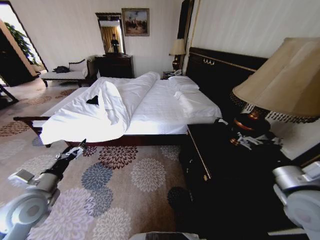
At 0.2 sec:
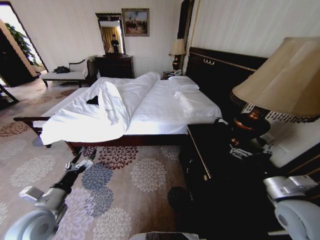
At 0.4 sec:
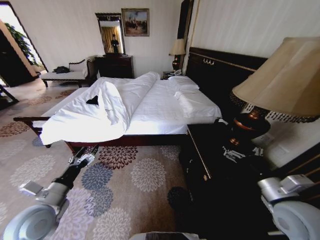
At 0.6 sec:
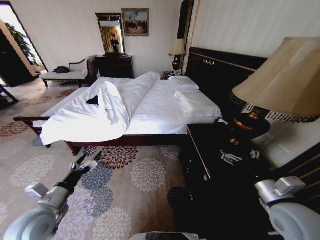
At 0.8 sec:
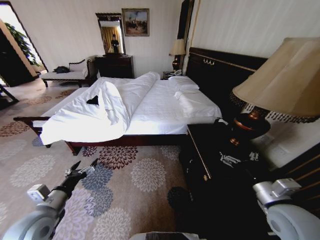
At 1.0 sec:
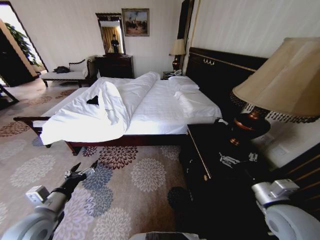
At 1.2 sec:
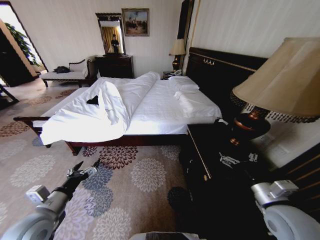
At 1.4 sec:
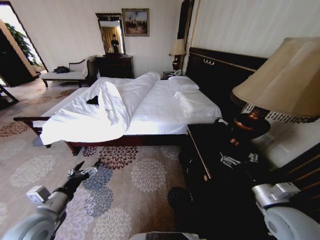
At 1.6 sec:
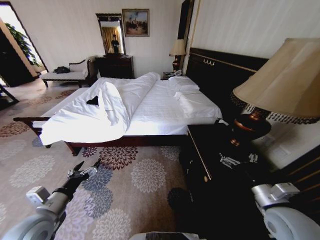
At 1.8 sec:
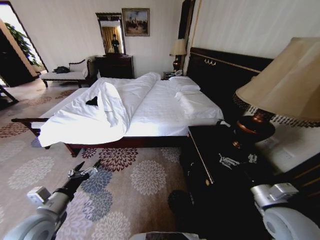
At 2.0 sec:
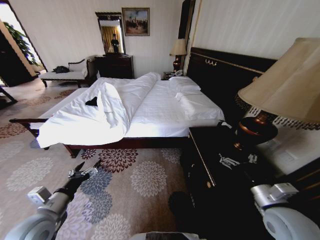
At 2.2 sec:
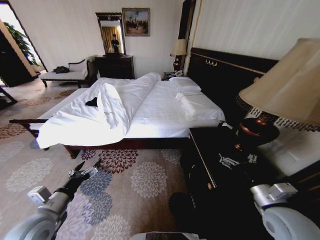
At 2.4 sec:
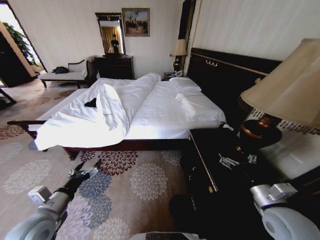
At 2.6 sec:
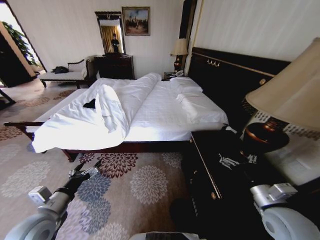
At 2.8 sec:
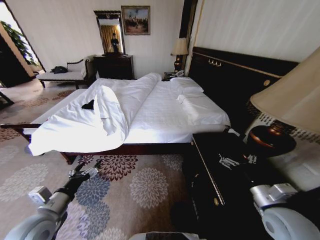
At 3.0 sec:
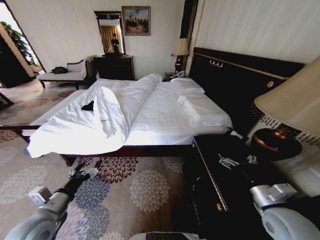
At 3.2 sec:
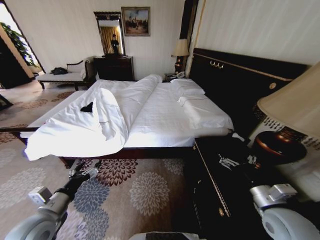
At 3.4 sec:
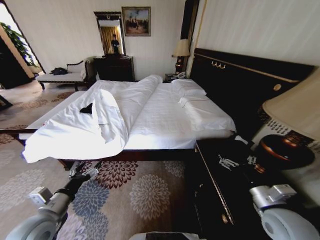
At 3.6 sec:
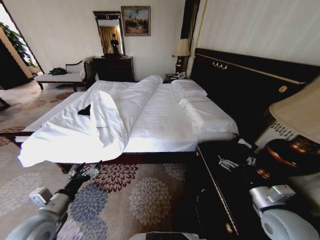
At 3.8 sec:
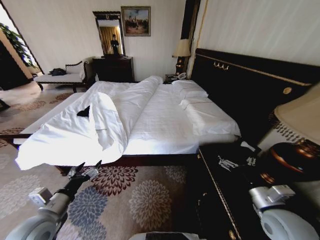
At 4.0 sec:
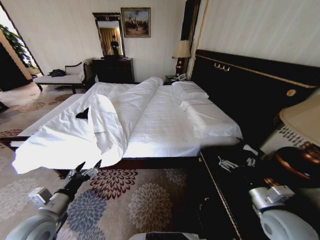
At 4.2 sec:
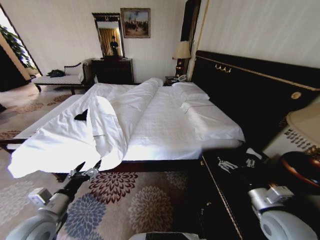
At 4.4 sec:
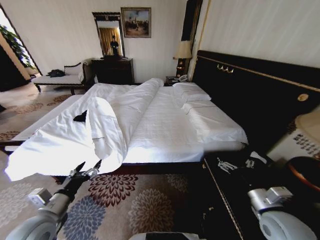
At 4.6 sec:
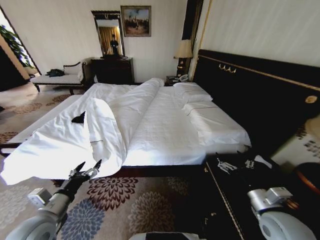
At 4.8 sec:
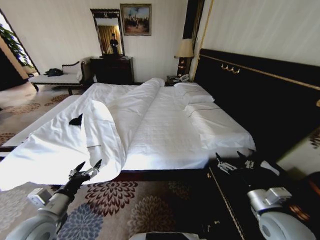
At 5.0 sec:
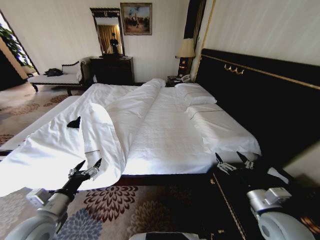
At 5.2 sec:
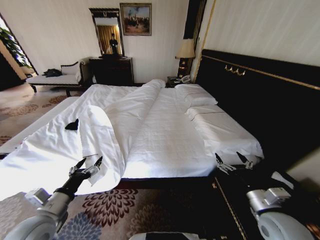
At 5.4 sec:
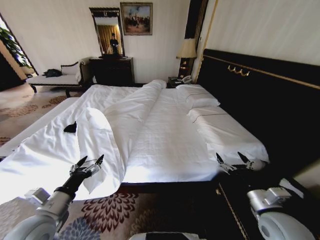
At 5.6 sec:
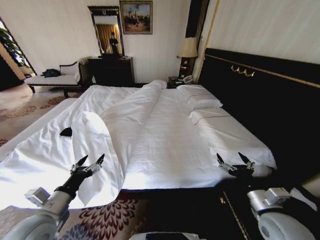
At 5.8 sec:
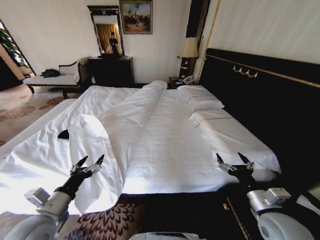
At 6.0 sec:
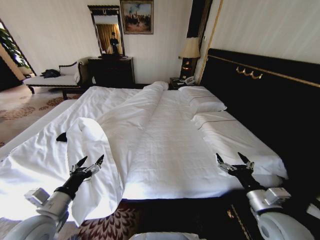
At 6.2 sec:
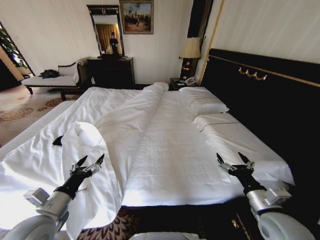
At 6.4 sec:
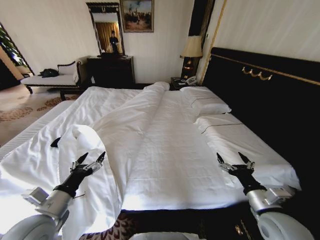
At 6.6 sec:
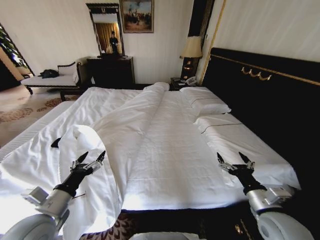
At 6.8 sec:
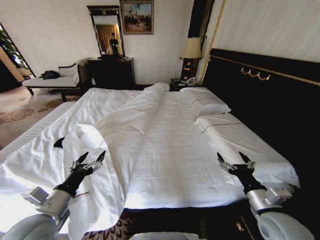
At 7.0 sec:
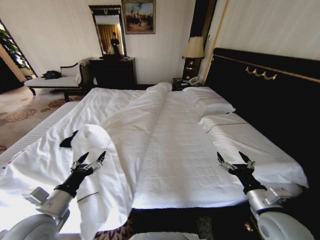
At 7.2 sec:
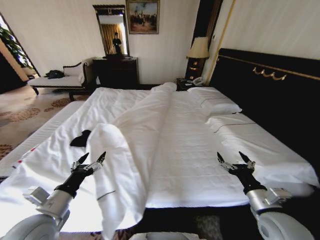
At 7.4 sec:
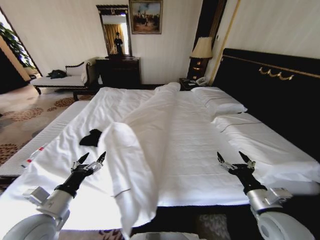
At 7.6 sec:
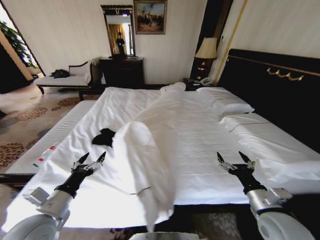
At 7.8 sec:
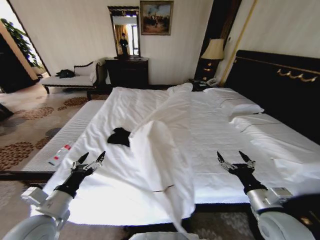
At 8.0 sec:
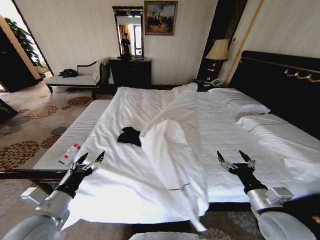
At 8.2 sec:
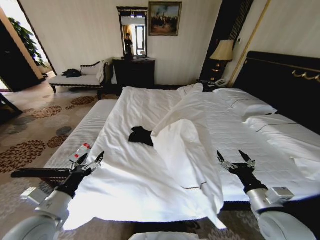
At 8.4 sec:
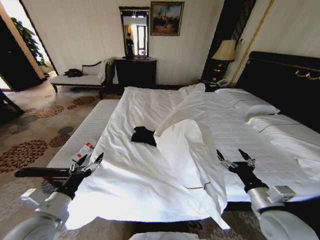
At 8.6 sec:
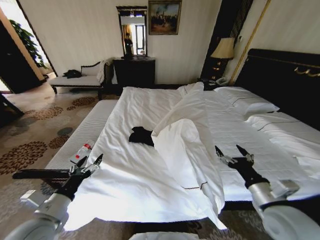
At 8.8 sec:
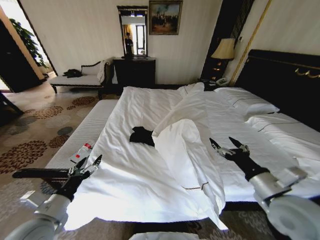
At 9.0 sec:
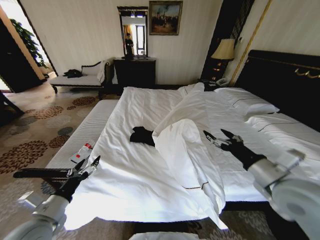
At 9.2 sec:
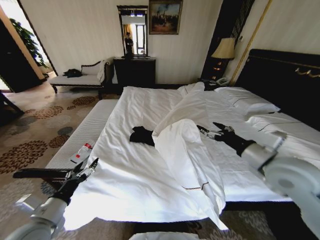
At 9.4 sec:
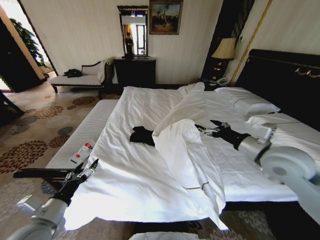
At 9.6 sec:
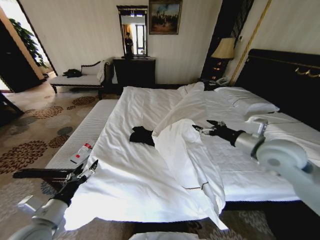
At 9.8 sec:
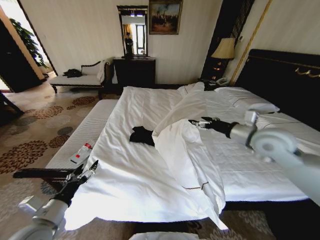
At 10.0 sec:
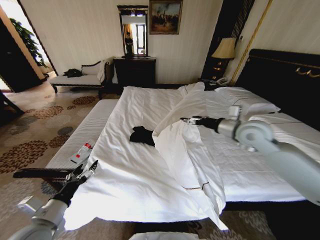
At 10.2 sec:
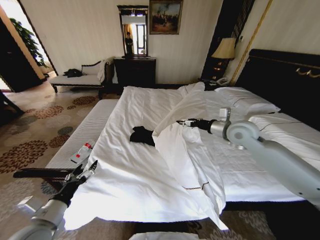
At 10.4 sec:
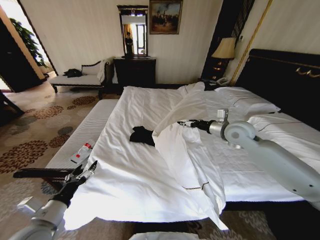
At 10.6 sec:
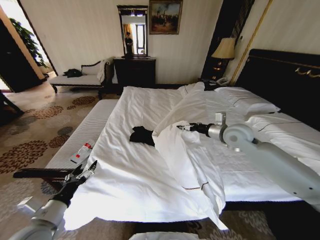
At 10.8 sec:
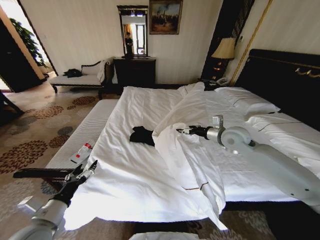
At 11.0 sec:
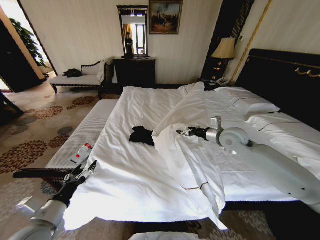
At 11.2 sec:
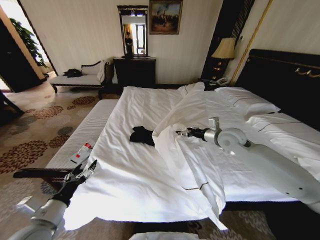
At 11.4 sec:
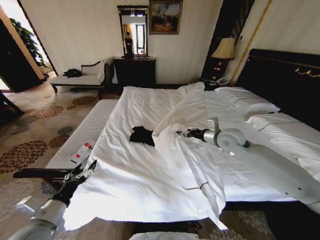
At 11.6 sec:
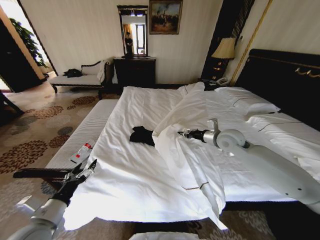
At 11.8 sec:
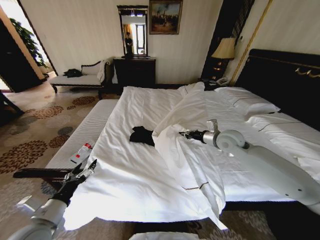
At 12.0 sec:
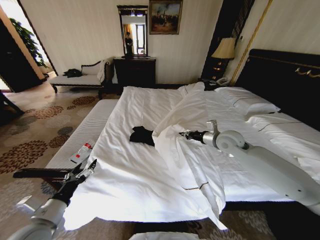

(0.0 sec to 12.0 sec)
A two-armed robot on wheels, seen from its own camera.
Task of the whole recording: Fold the clothes on the bed.
7.6 sec - 9.0 sec: The right gripper heads upward, covering some 10 cm.
9.0 sec - 10.4 sec: The right gripper moves forward, some 25 cm.
10.4 sec - 12.0 sec: The right gripper closes up.

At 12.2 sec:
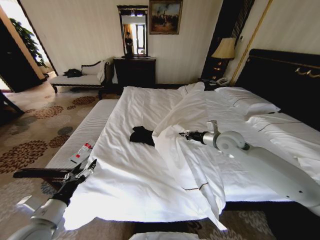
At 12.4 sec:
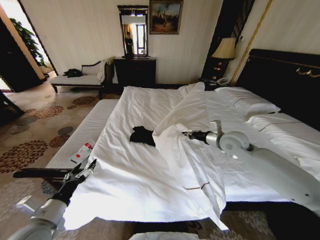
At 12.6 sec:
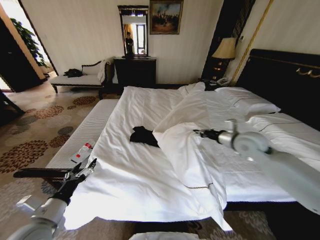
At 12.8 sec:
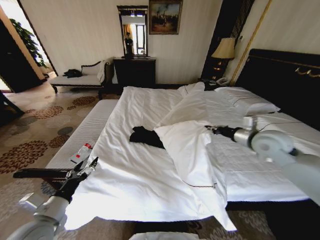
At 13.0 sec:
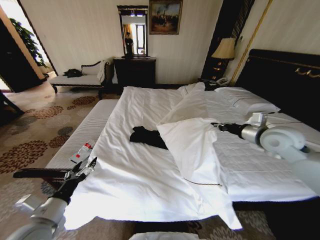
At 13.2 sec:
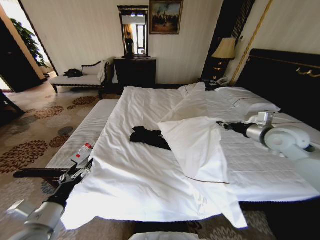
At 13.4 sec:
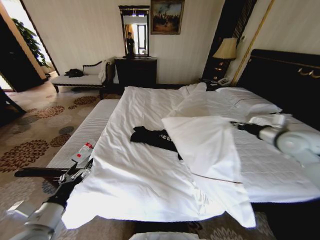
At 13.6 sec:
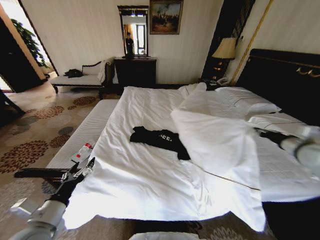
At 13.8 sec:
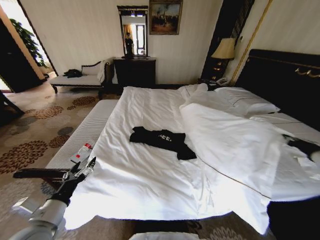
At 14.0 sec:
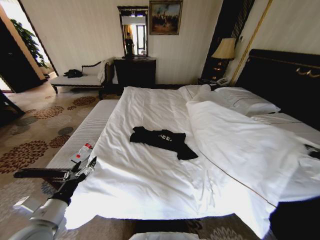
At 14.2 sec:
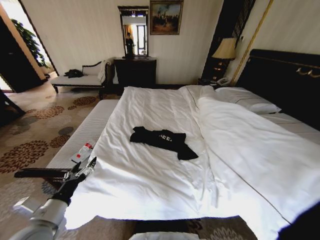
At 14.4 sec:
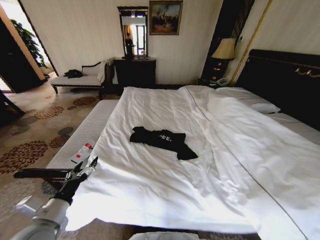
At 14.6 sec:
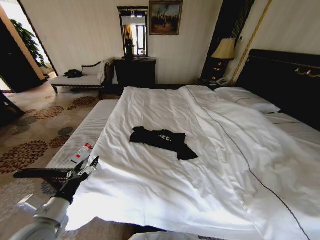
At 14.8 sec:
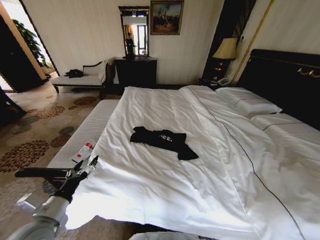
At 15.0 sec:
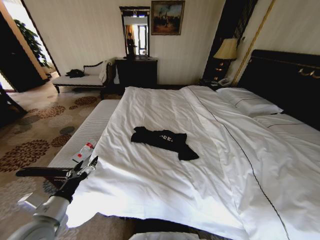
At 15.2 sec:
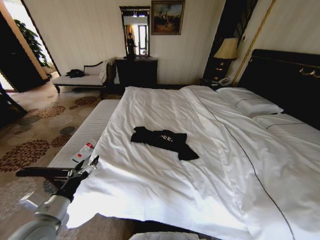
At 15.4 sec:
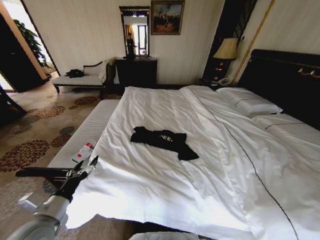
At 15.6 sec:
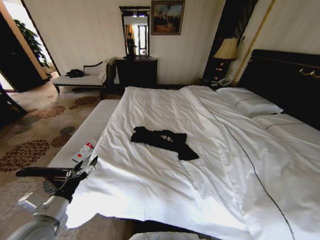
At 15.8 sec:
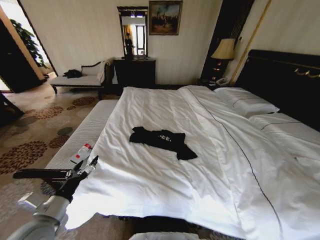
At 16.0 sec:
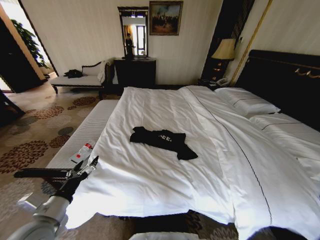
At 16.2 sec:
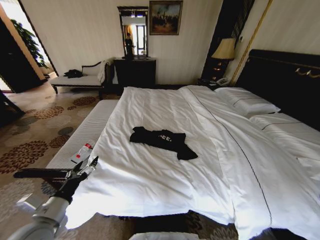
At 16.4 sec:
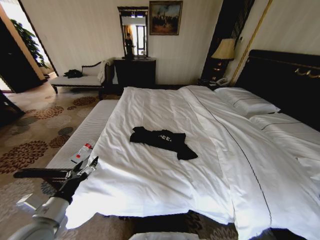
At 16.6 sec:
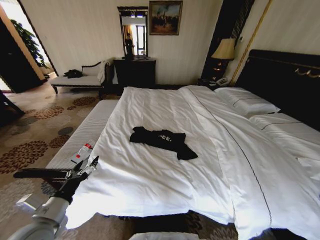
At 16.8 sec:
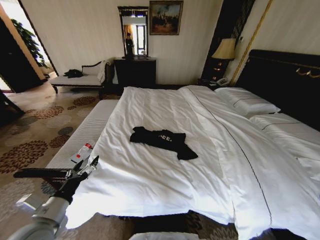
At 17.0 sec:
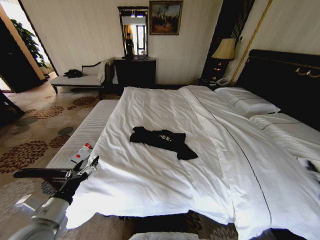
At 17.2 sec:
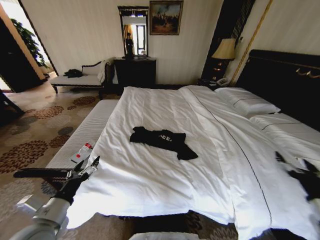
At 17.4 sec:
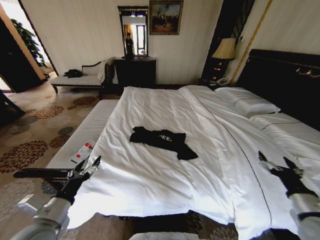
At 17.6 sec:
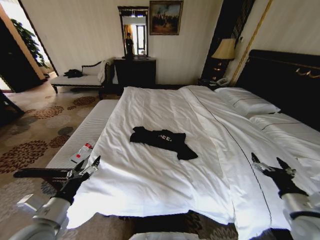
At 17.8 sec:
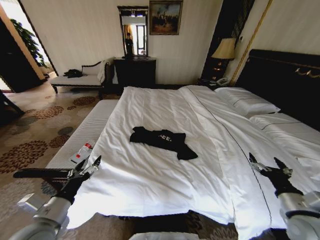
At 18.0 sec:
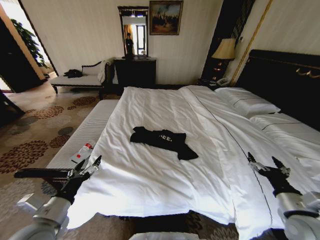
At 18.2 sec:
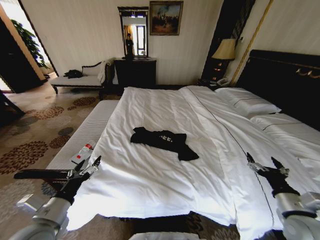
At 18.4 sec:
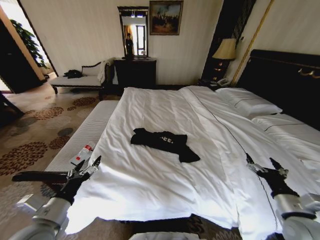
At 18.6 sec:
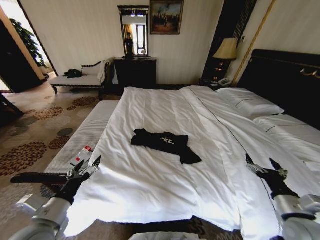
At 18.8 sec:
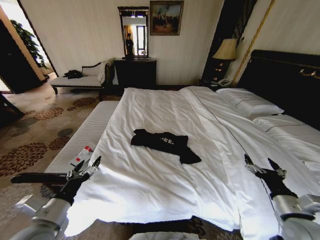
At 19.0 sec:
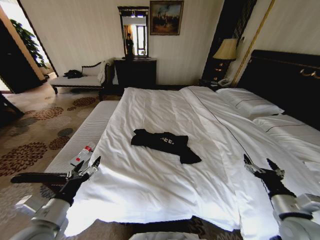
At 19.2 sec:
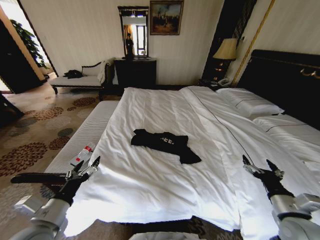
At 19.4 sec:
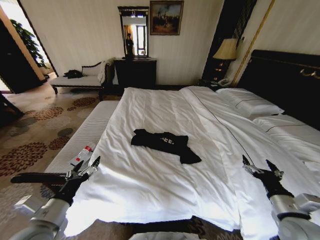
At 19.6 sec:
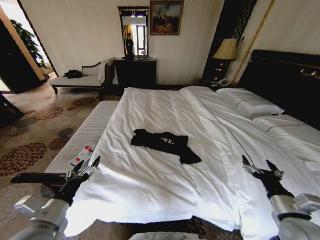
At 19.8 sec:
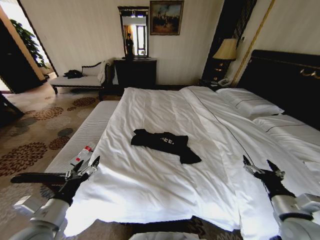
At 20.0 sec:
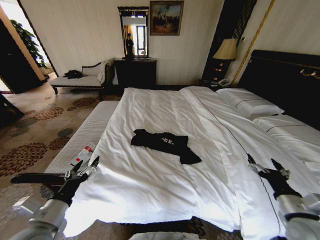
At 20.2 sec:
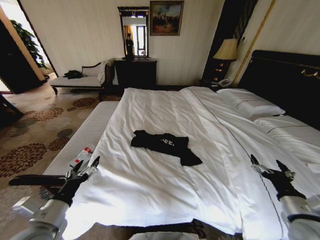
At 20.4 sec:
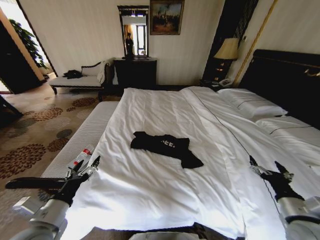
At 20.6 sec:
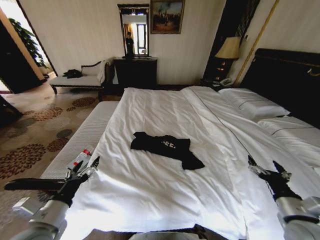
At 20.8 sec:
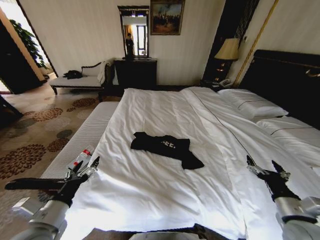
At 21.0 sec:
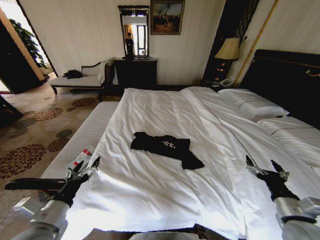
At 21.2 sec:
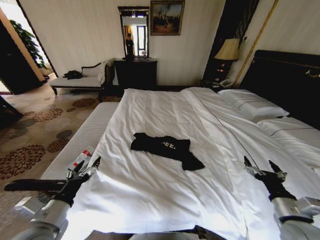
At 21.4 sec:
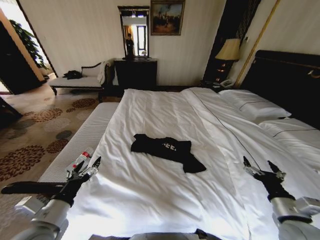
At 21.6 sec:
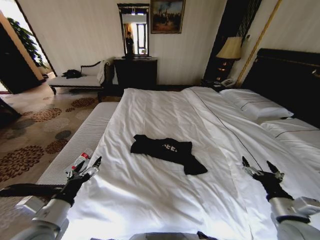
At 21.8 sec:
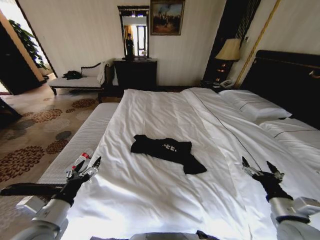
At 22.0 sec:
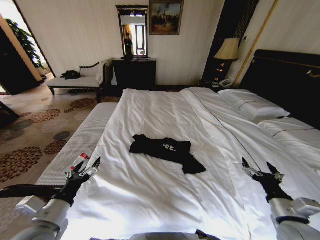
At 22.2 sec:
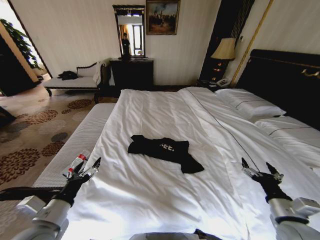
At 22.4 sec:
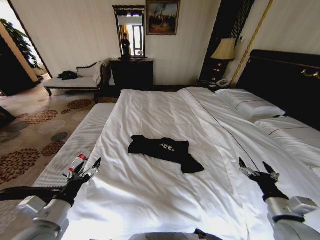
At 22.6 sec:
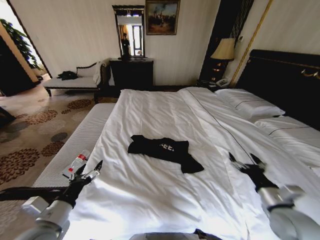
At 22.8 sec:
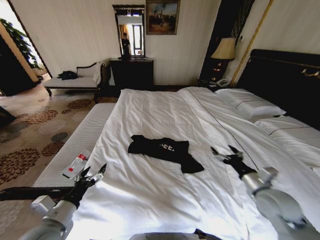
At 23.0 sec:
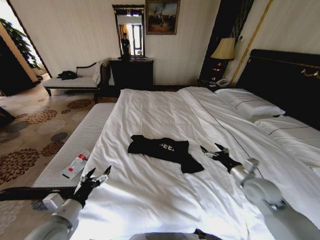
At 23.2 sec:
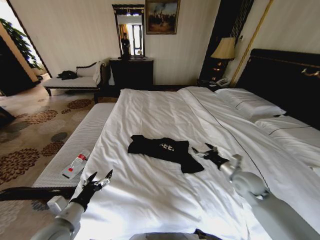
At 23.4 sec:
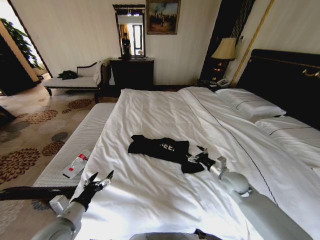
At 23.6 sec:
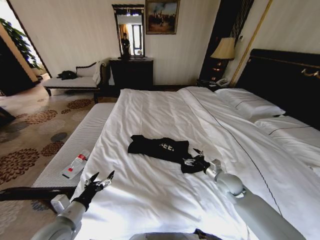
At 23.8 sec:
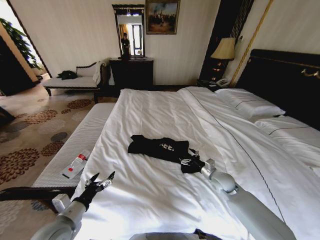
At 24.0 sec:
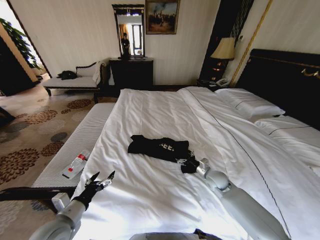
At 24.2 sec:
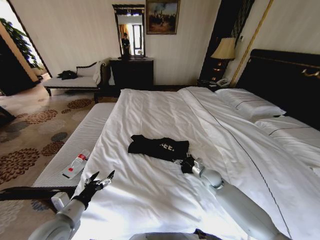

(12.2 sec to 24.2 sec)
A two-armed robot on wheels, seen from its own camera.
Task of the whole recording: Fold the clothes on the bed.
12.2 sec - 13.8 sec: The right gripper heads to the right and backward, covering roughly 35 cm.
13.8 sec - 15.2 sec: The right gripper goes some 35 cm backward and downward.
15.2 sec - 16.6 sec: The right gripper is displaced to the left by some 5 cm, and opens up.
16.6 sec - 18.2 sec: The right gripper travels to the left and forward by roughly 25 cm.
18.2 sec - 19.8 sec: The grippers make only small movements.
22.6 sec - 24.2 sec: The right gripper is displaced forward, downward and to the left by some 25 cm.
